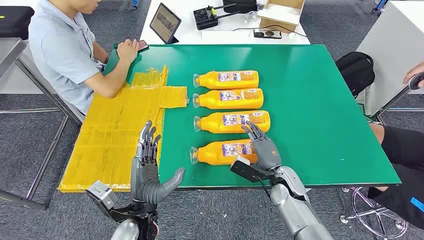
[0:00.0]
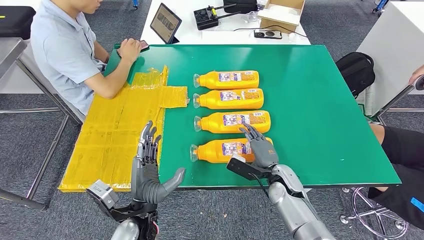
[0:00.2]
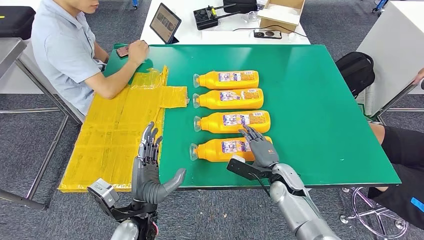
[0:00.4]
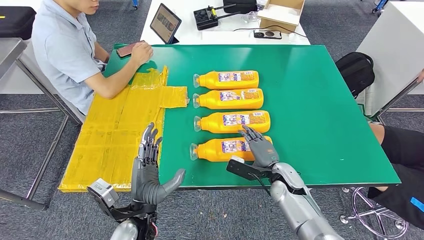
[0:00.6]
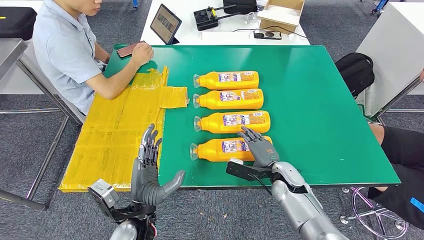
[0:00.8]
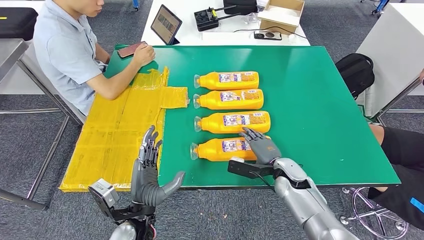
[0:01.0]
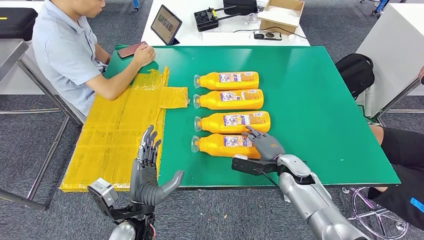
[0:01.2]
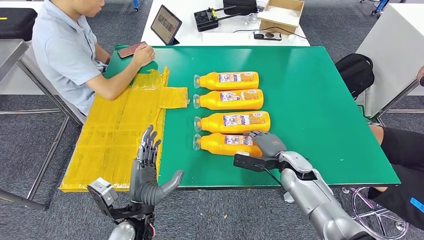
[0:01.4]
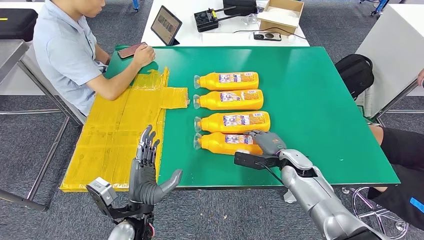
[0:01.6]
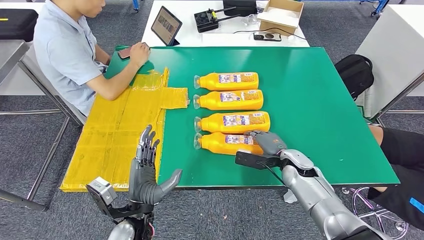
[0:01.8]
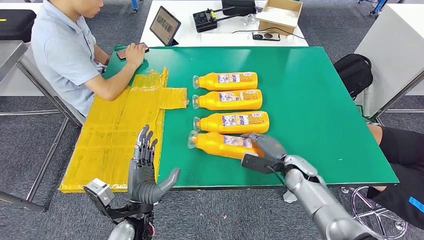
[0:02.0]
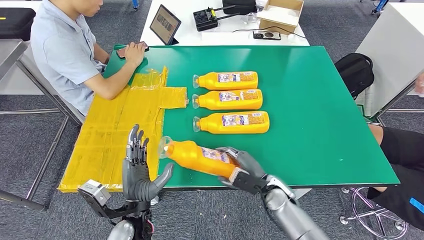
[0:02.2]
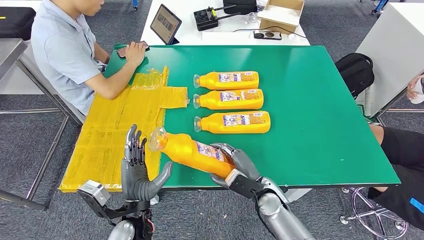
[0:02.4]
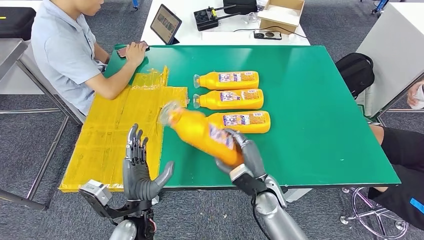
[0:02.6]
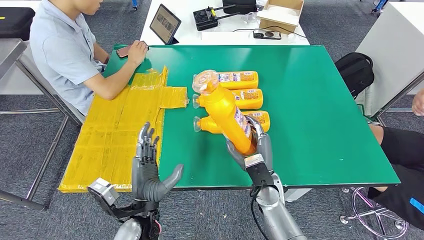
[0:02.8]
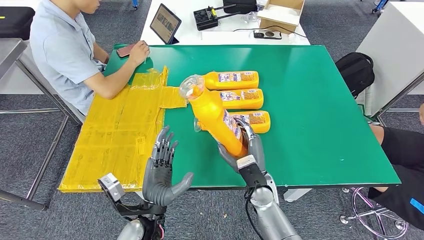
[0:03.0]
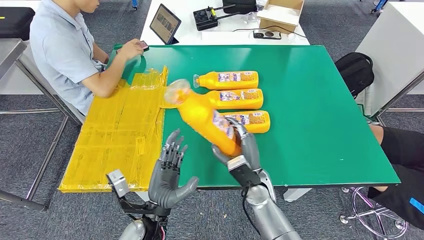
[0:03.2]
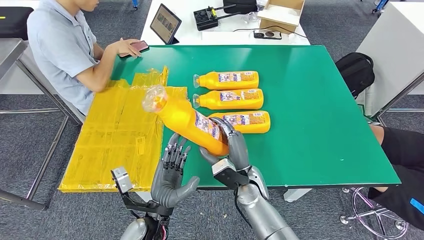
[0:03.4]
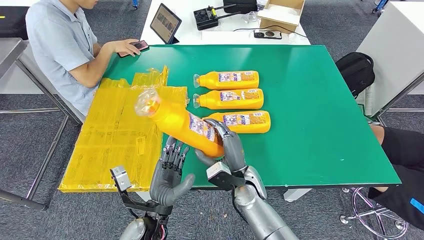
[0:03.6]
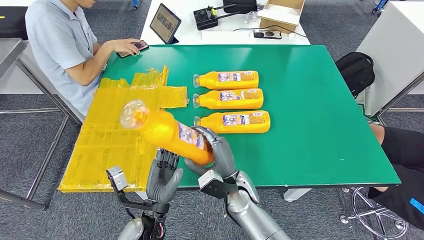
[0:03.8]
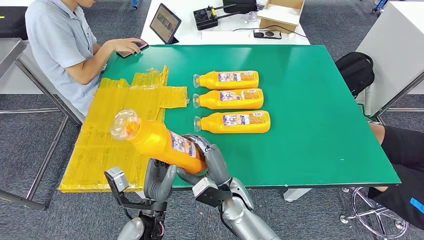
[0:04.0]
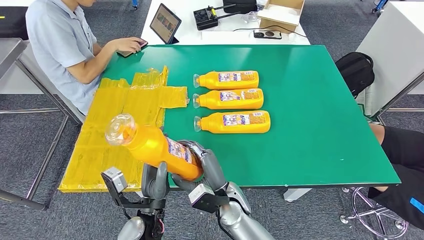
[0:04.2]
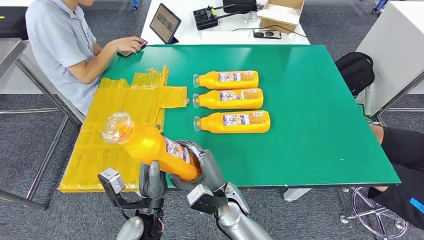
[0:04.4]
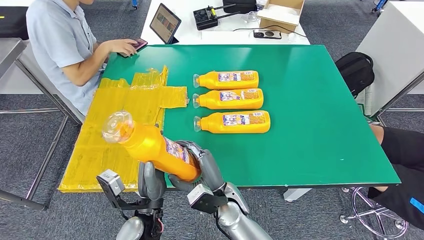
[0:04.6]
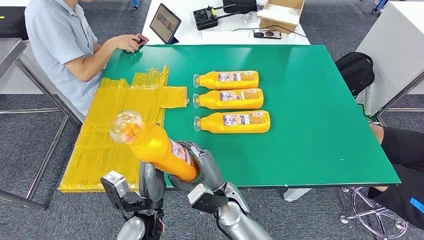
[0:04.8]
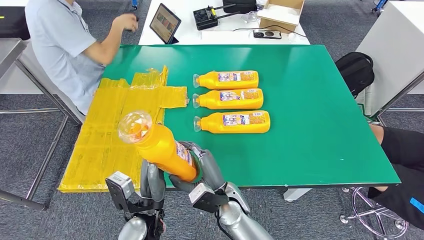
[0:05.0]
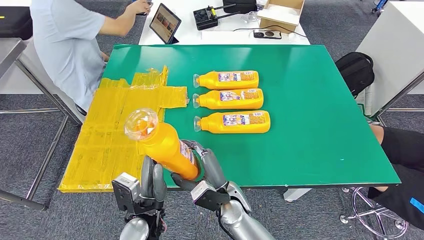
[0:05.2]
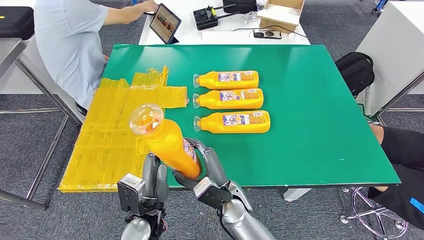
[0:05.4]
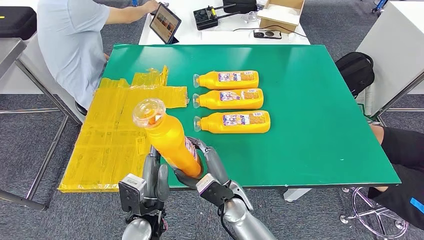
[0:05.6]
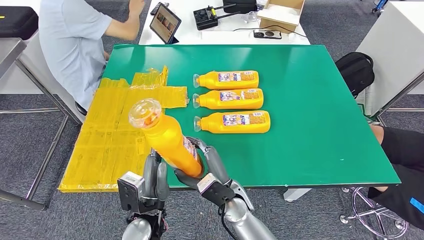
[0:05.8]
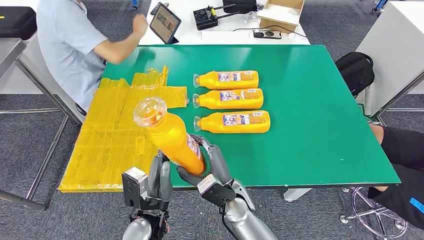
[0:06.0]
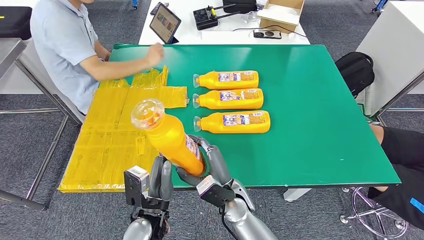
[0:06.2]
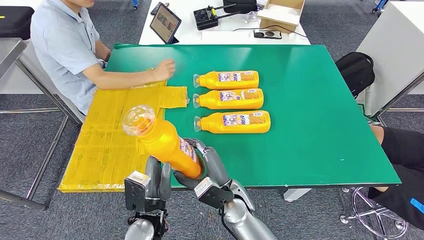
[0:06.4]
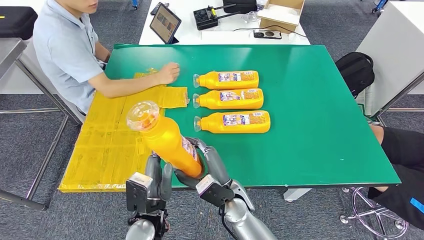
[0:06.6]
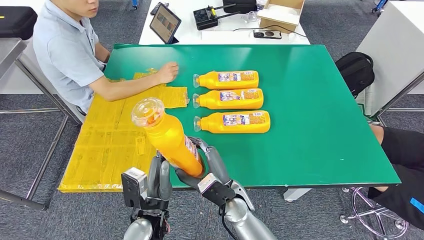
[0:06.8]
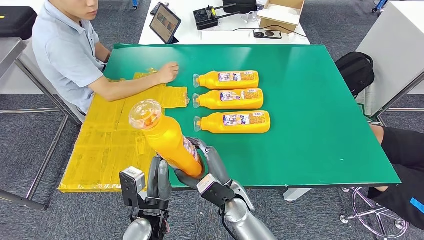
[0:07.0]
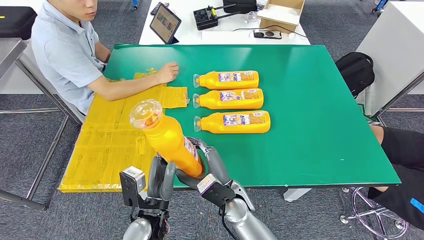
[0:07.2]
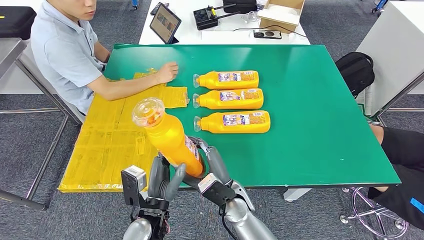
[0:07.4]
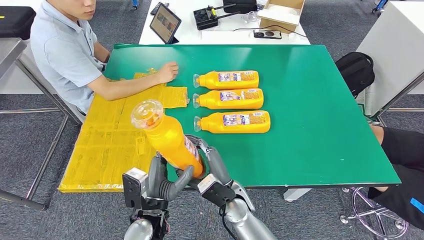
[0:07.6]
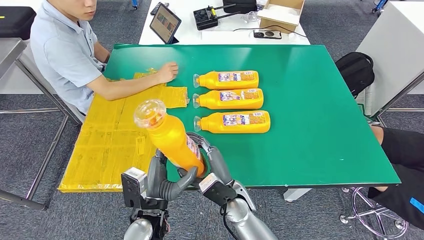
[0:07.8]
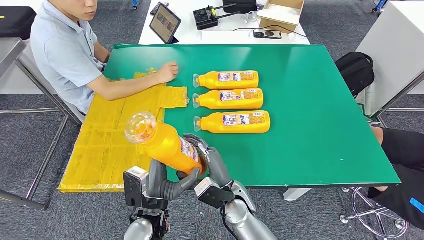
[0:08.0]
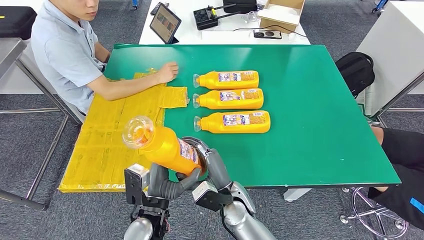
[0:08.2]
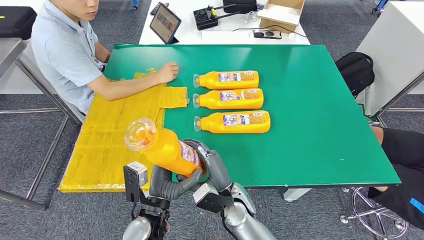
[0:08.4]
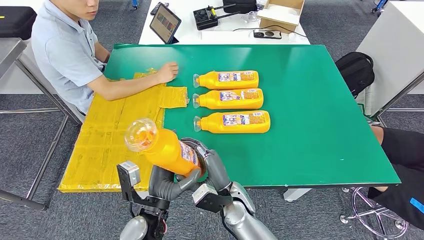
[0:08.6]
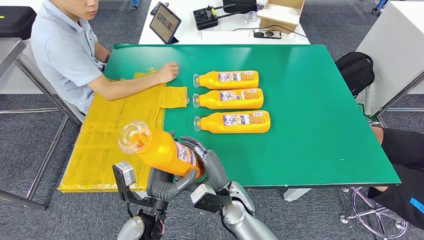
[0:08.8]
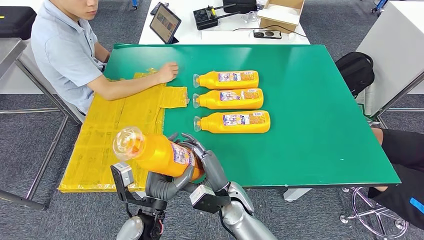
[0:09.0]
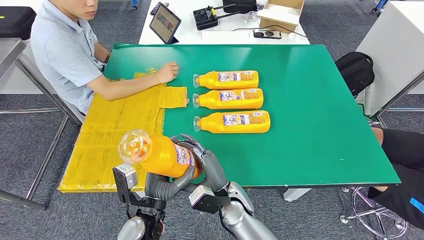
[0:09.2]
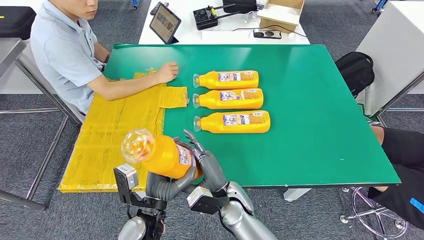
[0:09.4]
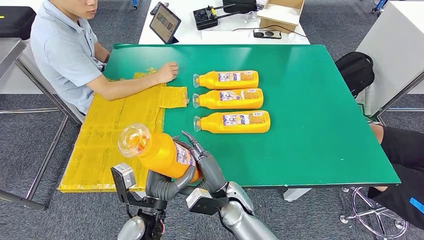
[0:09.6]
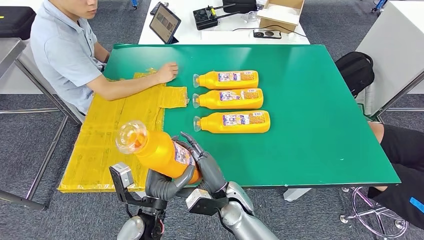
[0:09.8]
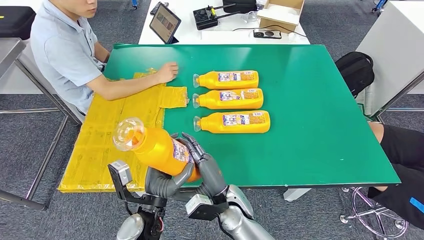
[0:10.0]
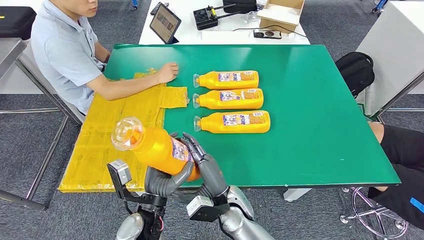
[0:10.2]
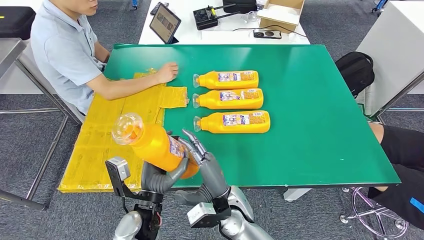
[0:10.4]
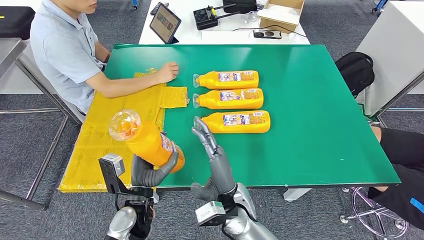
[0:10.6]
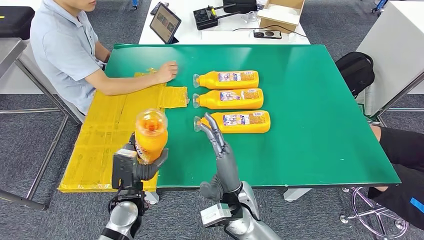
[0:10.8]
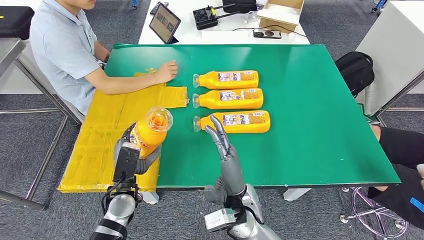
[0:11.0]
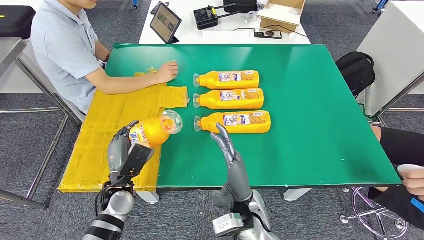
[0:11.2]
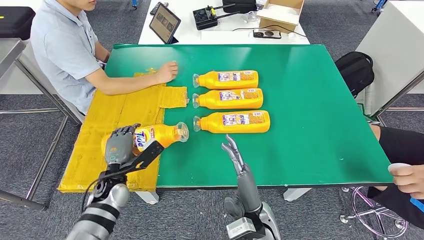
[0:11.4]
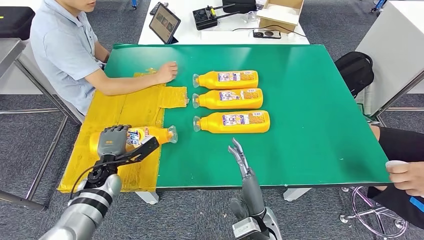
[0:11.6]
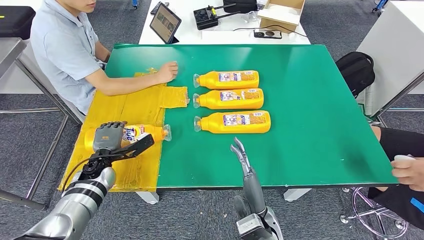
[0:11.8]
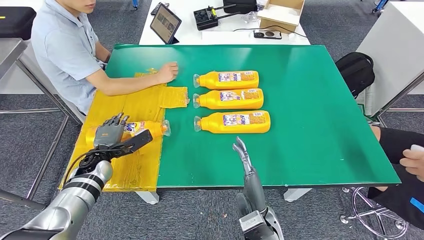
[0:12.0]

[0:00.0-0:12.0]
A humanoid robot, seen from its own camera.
Step, 0:00.0 to 0:04.4: Take the fast-moving consumer goods bottle from the table.
0:03.0 to 0:04.4: The right hand moves to the left, approximately 10 cm.
0:06.0 to 0:07.6: The hands move only a little.
0:09.0 to 0:10.4: The hands stay close to where they were, moving slightly.
0:10.4 to 0:12.0: The left hand travels to the left and forward by about 25 cm; the right hand heads to the right, covering about 5 cm.

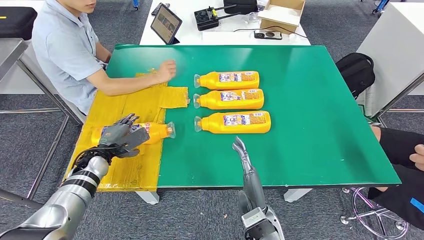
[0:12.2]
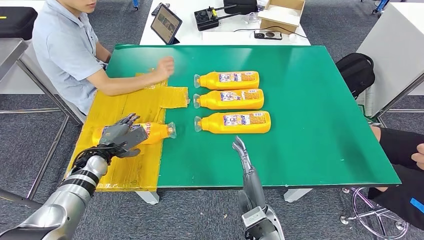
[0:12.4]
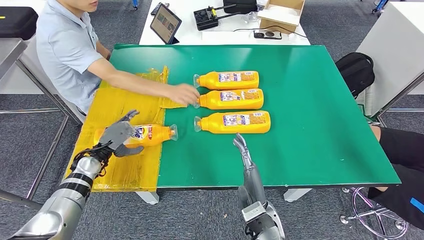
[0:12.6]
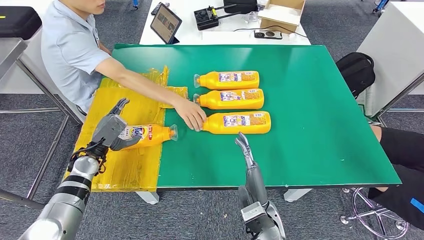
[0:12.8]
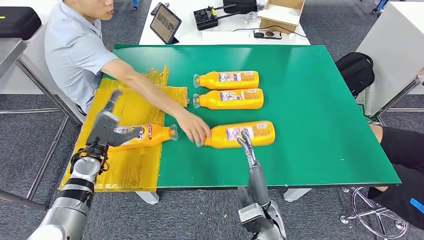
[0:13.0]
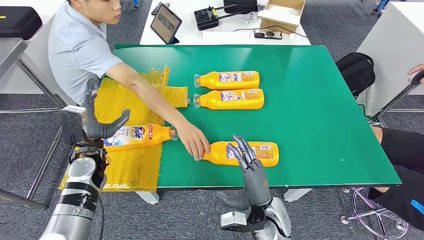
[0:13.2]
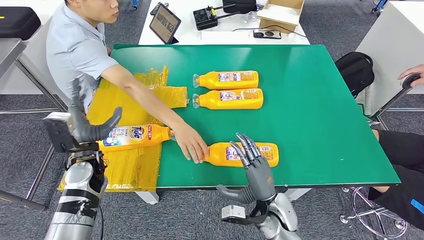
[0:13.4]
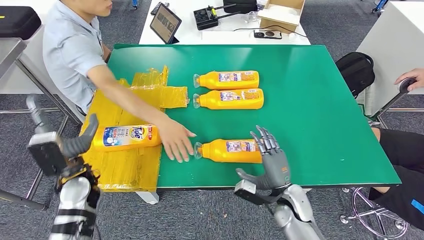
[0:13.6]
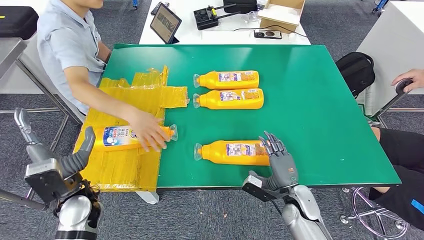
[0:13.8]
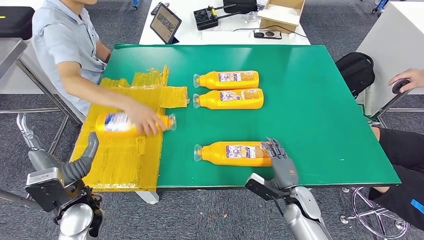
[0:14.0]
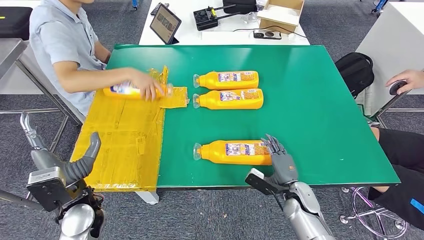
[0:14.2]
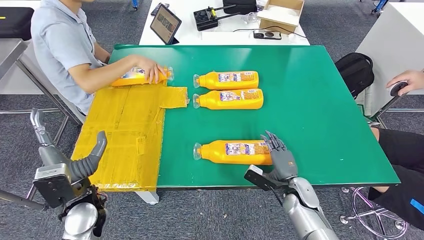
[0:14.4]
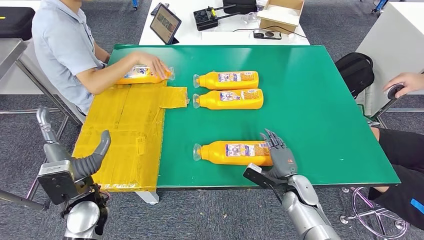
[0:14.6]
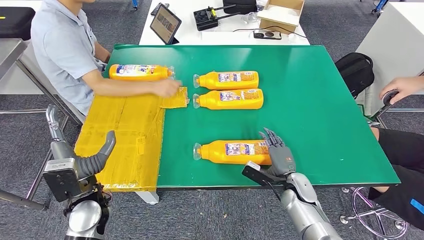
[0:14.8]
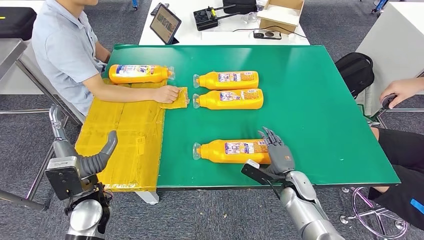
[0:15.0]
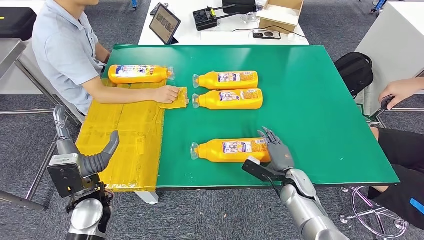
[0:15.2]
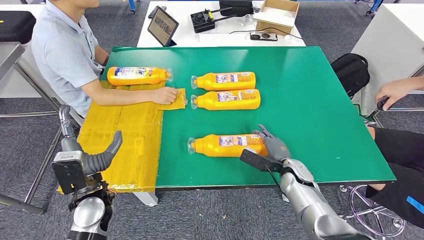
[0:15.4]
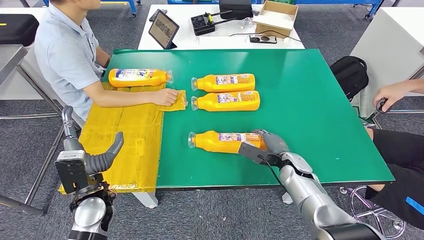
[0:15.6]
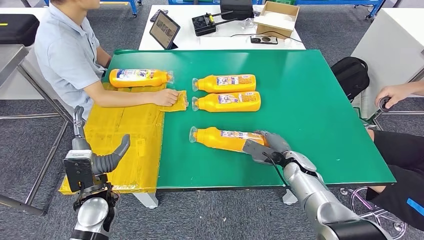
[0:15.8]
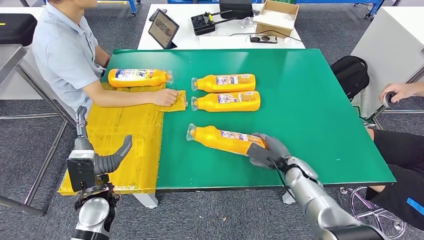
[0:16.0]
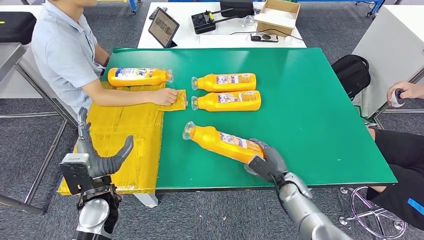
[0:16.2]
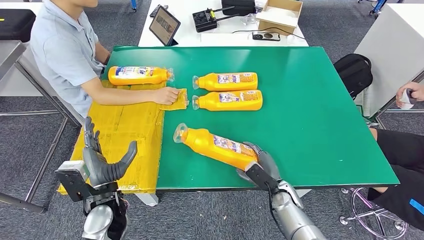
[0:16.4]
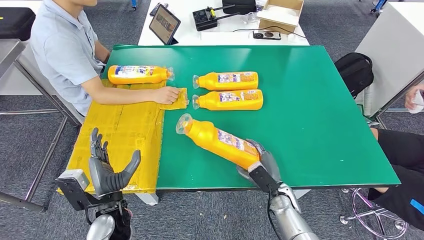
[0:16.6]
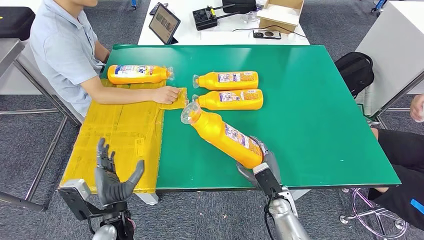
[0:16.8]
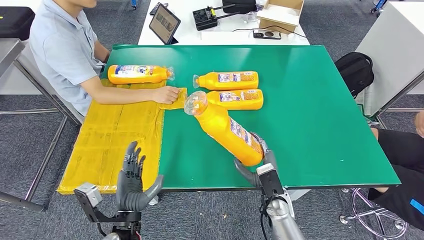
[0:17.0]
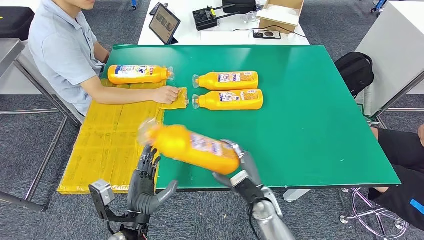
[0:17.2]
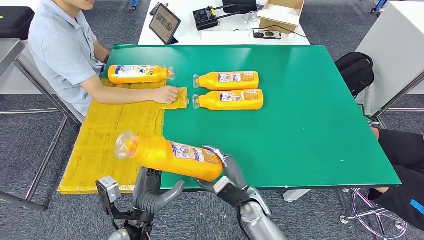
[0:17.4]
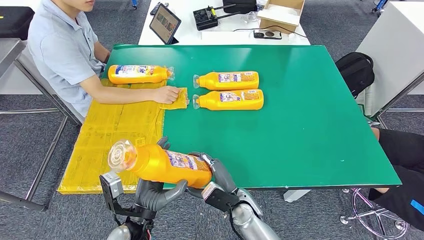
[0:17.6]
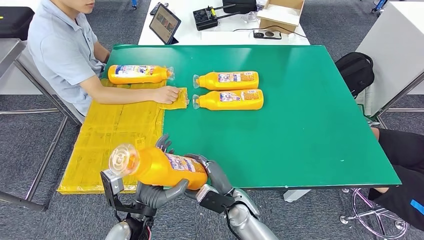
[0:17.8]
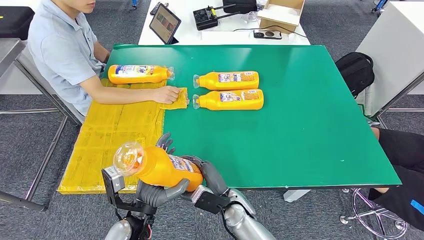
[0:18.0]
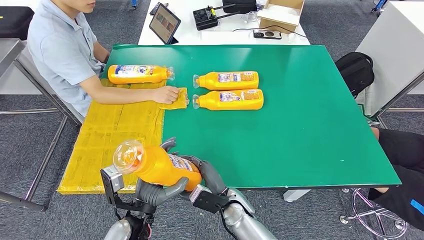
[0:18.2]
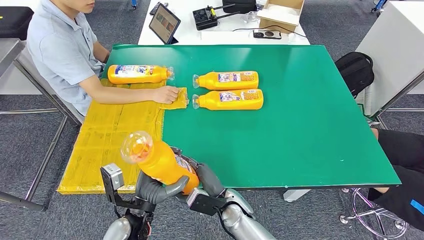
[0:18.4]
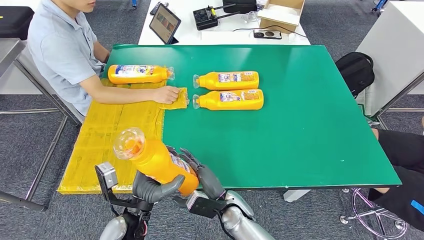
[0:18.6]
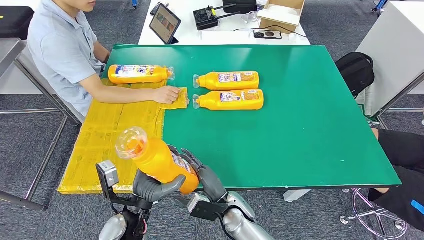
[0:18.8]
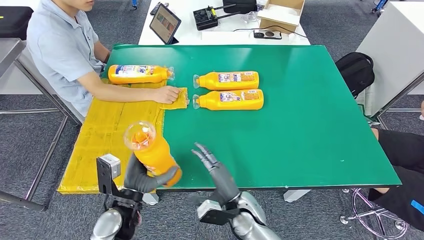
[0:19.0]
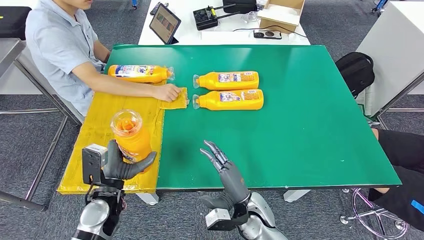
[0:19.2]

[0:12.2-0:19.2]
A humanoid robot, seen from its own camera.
Step, 0:13.6 to 0:18.0: Pick up the fast-moving consumer goods bottle from the table.
0:17.8 to 0:19.2: The left hand shifts approximately 10 cm to the left and forward.
